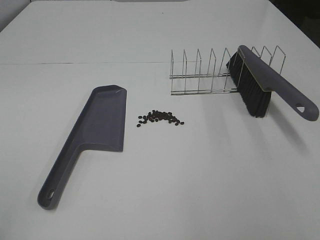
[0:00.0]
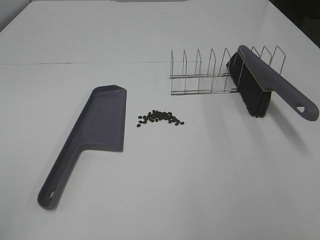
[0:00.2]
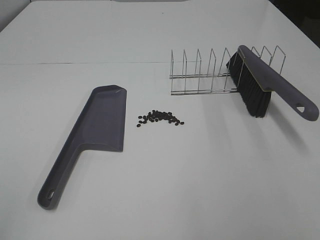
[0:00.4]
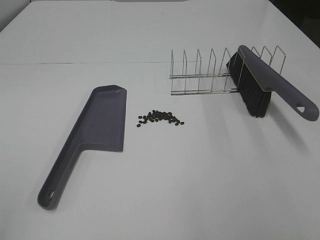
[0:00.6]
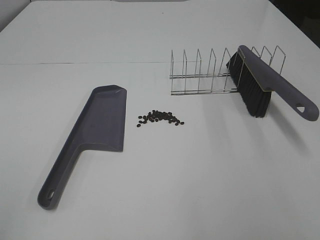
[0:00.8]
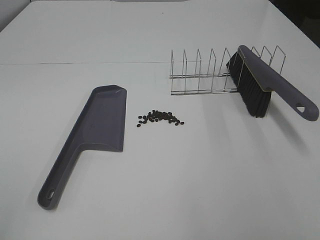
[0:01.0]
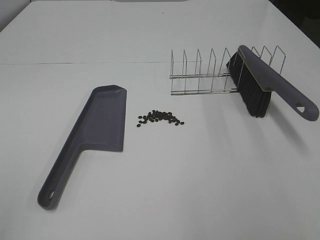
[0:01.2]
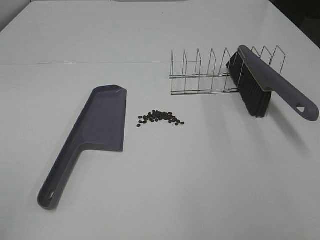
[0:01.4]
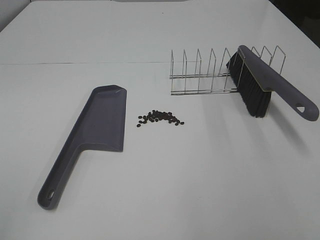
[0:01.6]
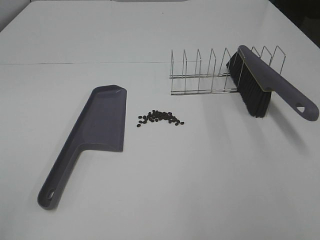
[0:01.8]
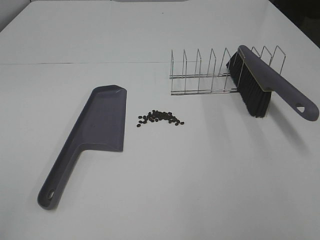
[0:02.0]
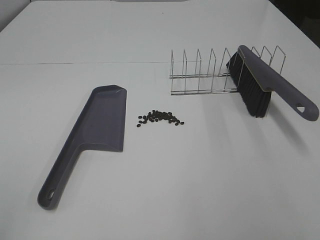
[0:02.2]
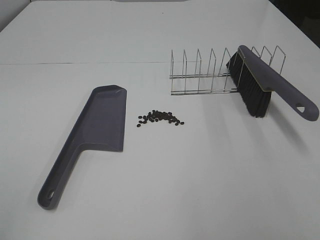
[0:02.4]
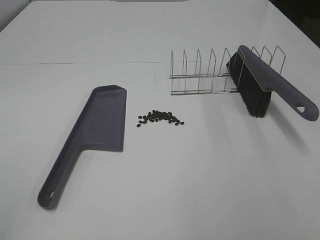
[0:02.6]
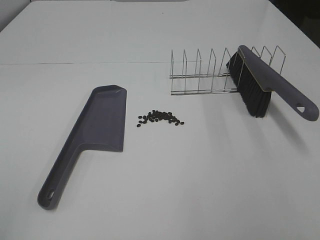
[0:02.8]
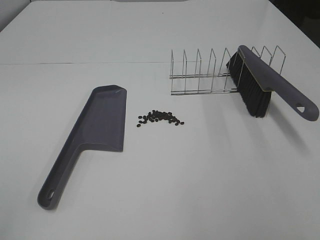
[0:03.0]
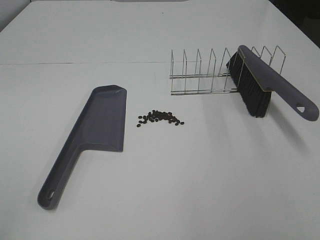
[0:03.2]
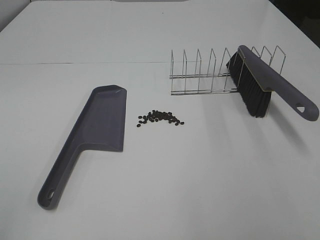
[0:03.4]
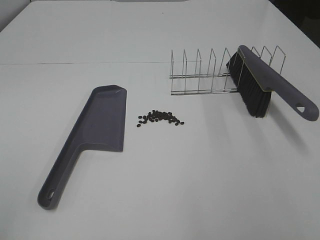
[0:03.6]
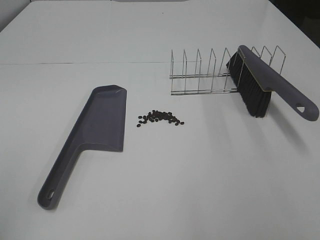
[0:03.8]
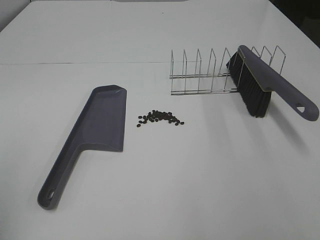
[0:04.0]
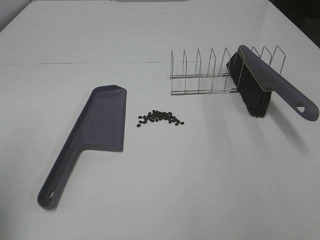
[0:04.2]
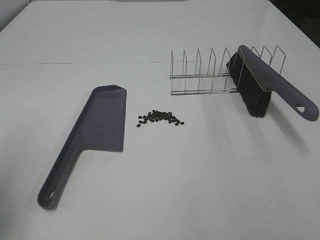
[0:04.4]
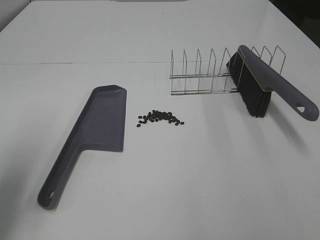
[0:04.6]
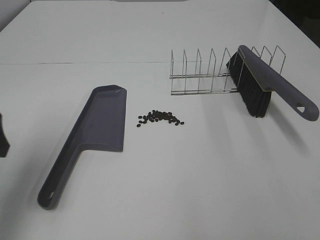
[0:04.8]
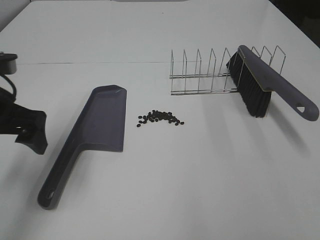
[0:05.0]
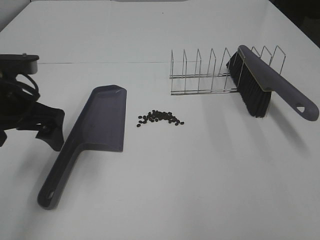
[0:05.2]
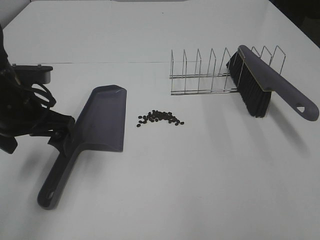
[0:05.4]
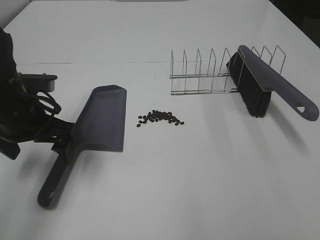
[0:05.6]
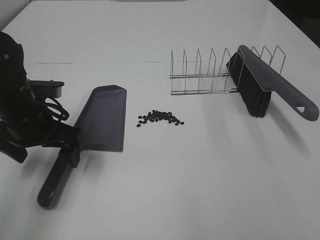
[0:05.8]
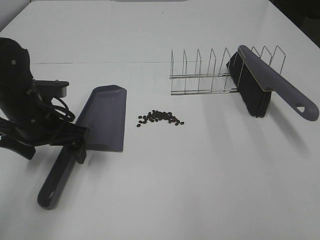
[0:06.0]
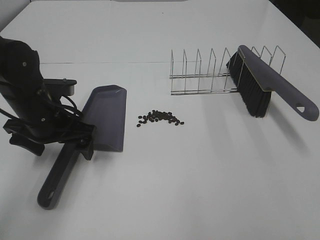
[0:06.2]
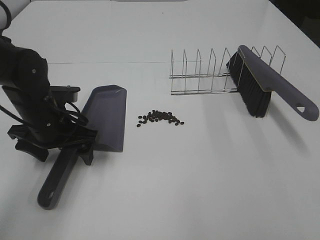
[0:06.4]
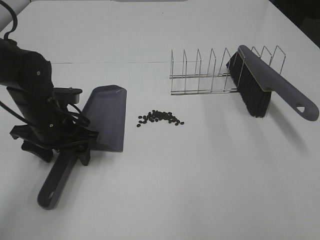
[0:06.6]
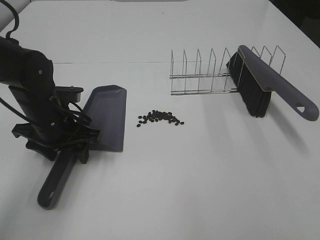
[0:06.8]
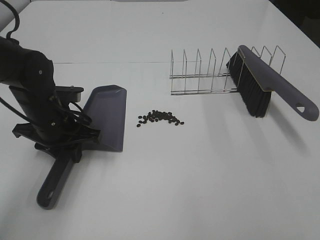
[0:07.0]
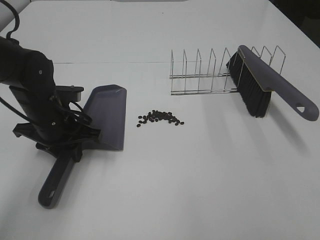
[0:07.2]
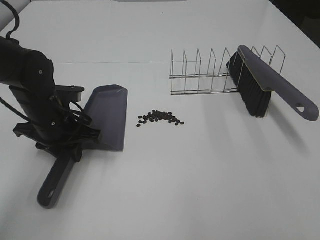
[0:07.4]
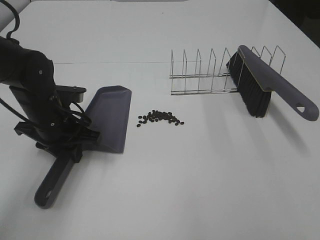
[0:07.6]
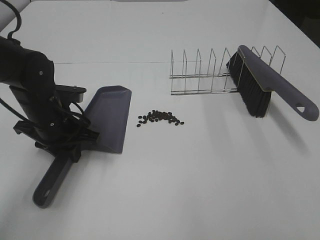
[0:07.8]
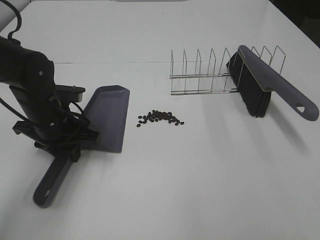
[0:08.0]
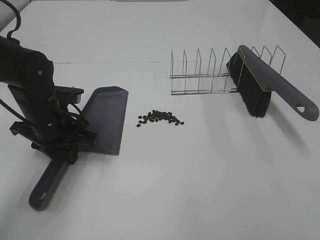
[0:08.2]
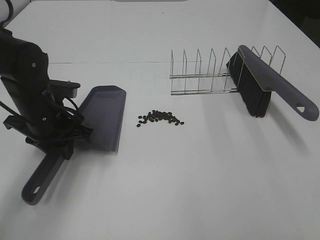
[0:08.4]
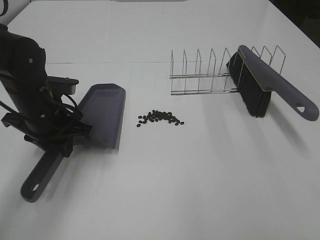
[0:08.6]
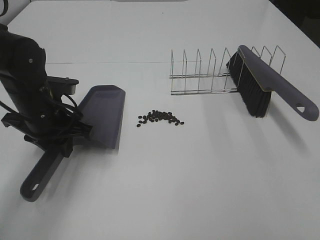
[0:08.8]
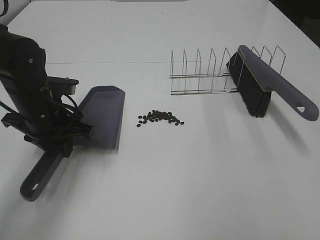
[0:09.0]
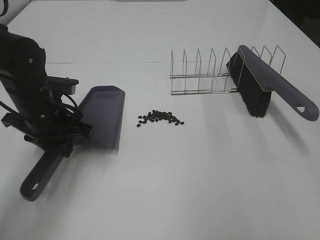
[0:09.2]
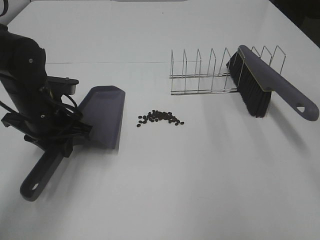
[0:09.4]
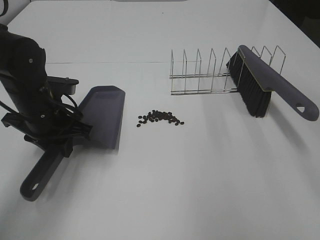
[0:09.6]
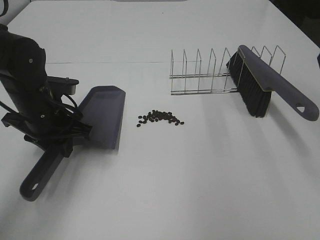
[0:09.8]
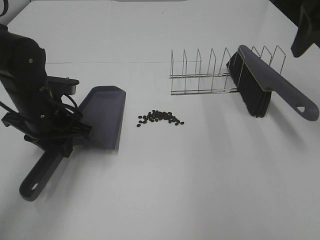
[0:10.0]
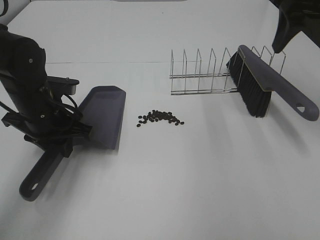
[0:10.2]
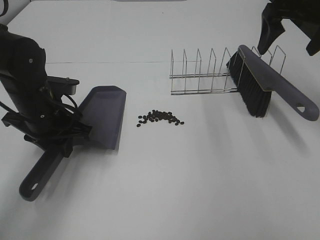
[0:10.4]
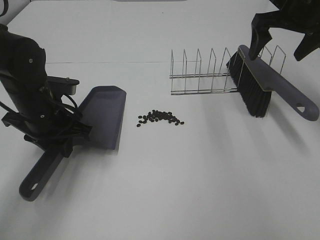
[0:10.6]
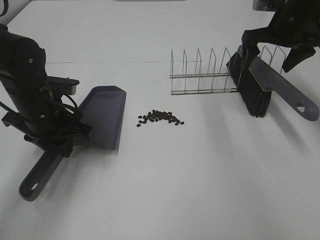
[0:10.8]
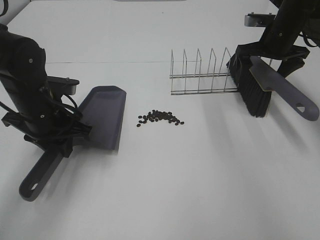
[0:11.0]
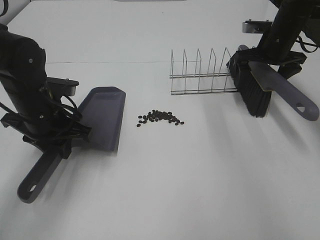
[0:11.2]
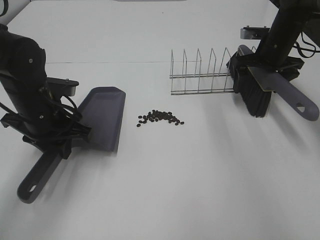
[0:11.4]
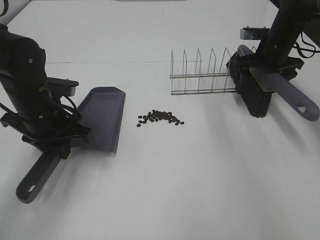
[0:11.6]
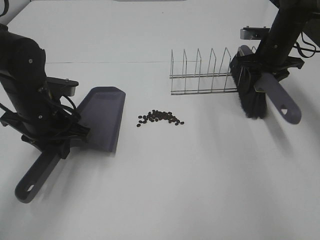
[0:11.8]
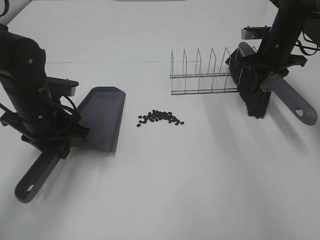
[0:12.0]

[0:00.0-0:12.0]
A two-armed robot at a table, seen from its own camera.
Task of the whole recording: Sweep Coffee Bean.
Step, 0:00.0 to 0:07.2: Left hand: grab the dustpan.
Step, 0:08.8 to 0:11.8: Right hand:grab the broom.
0:00.0 to 0:03.0: Both grippers stay put.
0:03.0 to 0:04.4: The left gripper shifts about 15 cm forward.
0:04.4 to 0:06.0: The left gripper heads forward, to the right and downward, covering some 25 cm.
0:06.0 to 0:07.6: The left gripper closes.
0:07.6 to 0:09.0: The right gripper shifts about 10 cm forward and upward.
0:09.0 to 0:10.4: The right gripper is displaced forward by about 30 cm, and opens.
0:10.4 to 0:12.0: The right gripper is displaced downward and forward by roughly 15 cm, and closes up.

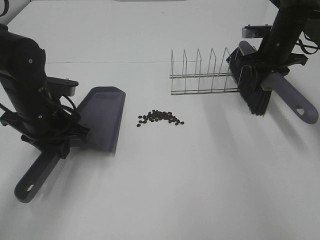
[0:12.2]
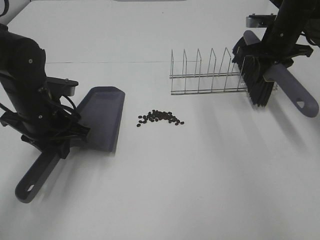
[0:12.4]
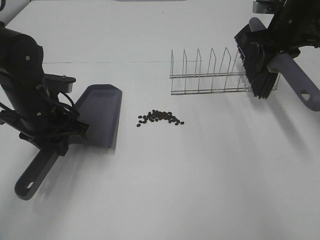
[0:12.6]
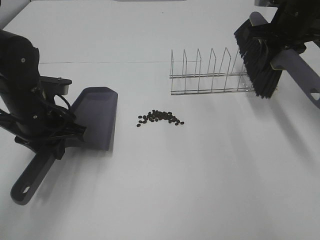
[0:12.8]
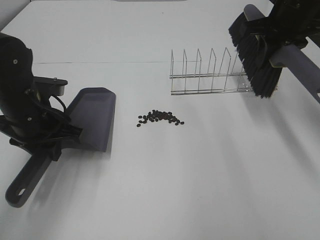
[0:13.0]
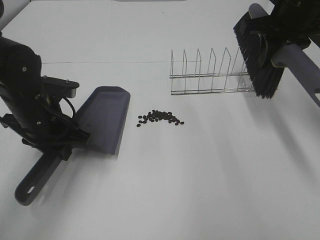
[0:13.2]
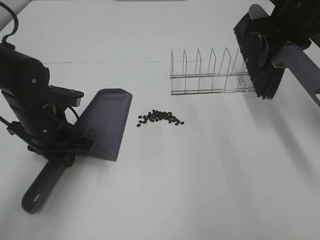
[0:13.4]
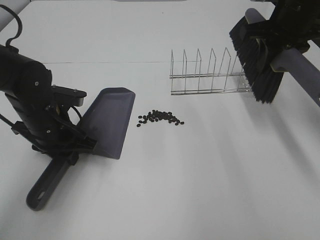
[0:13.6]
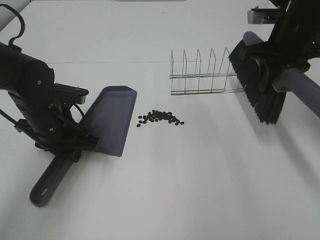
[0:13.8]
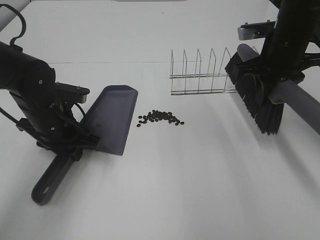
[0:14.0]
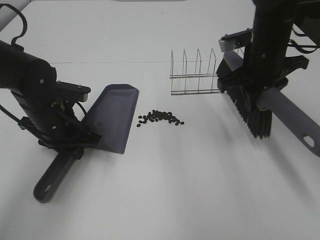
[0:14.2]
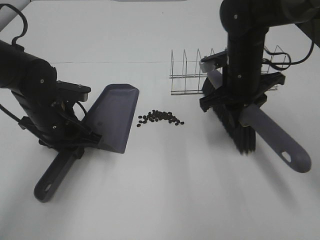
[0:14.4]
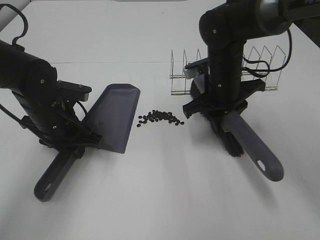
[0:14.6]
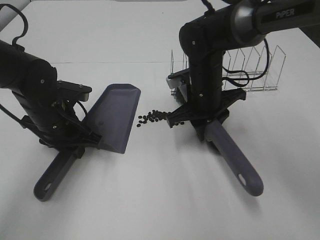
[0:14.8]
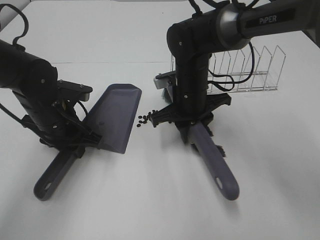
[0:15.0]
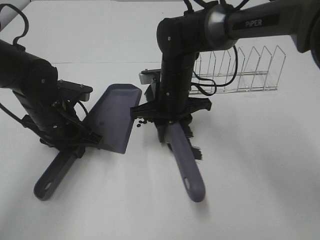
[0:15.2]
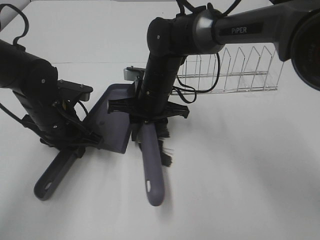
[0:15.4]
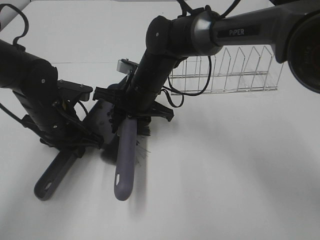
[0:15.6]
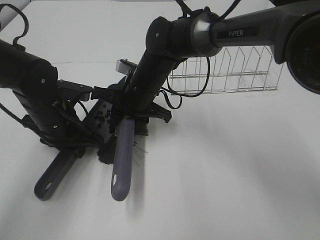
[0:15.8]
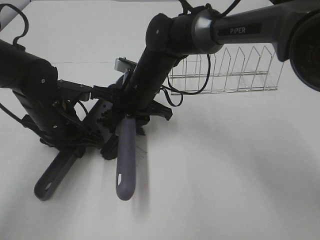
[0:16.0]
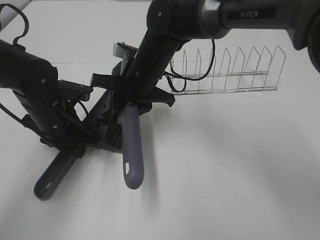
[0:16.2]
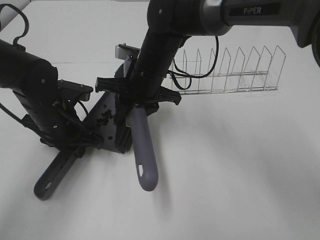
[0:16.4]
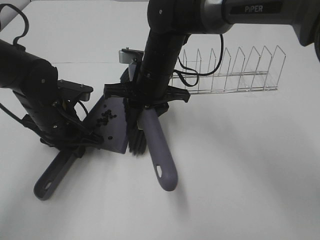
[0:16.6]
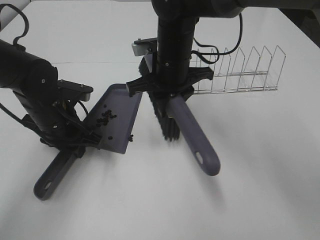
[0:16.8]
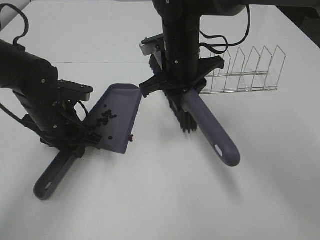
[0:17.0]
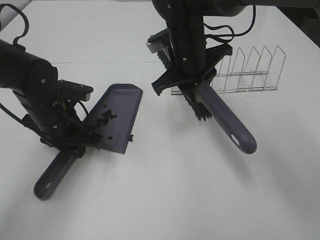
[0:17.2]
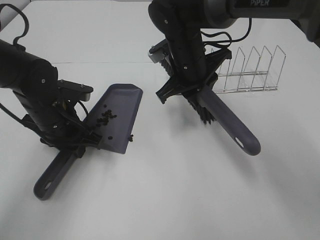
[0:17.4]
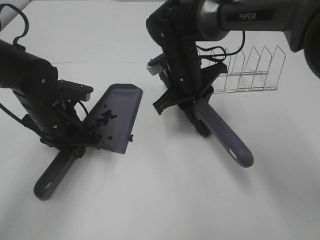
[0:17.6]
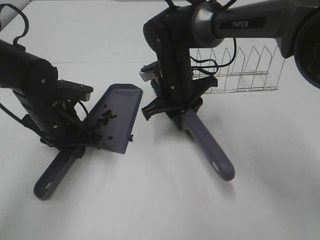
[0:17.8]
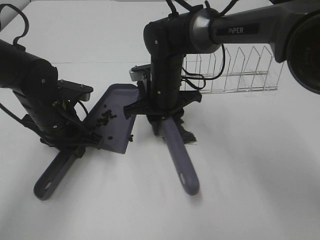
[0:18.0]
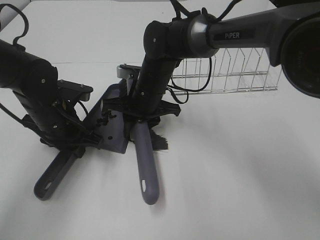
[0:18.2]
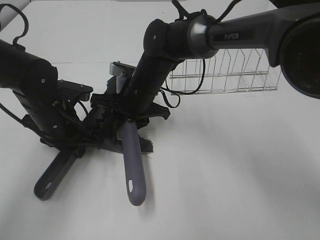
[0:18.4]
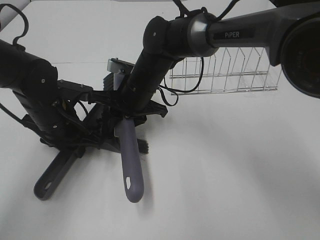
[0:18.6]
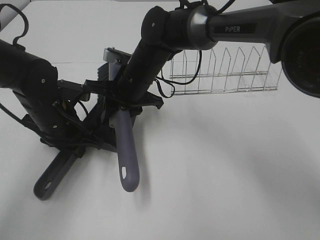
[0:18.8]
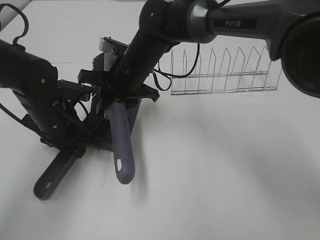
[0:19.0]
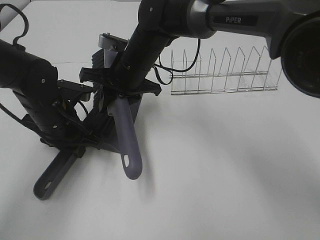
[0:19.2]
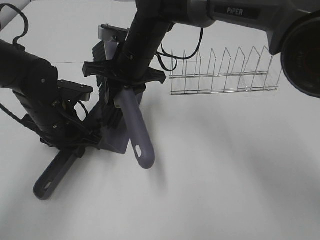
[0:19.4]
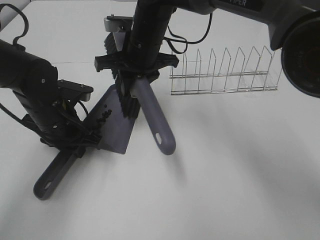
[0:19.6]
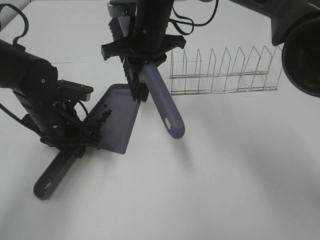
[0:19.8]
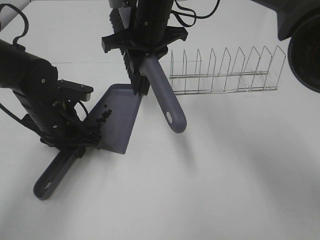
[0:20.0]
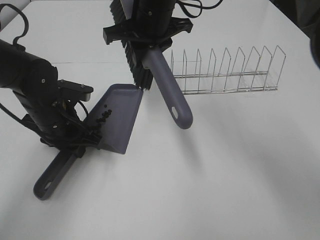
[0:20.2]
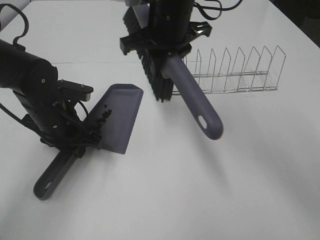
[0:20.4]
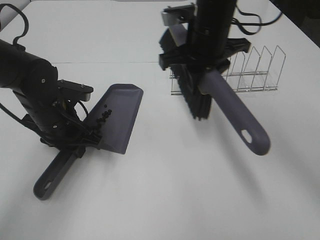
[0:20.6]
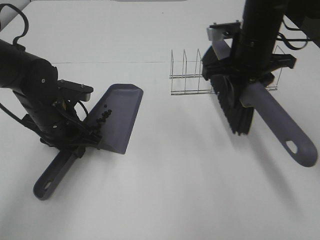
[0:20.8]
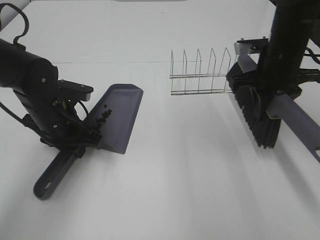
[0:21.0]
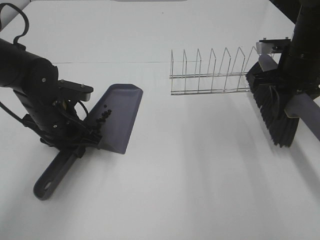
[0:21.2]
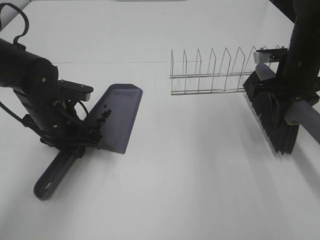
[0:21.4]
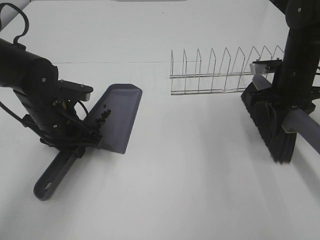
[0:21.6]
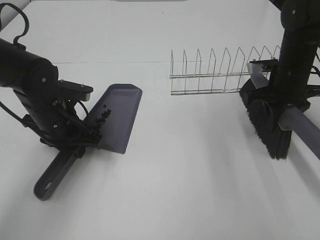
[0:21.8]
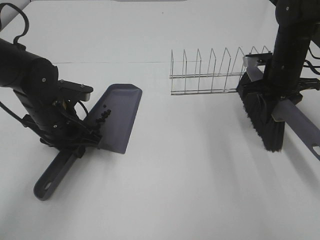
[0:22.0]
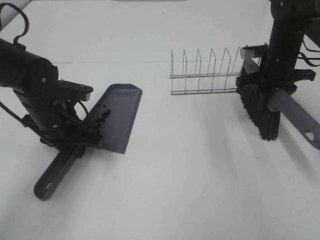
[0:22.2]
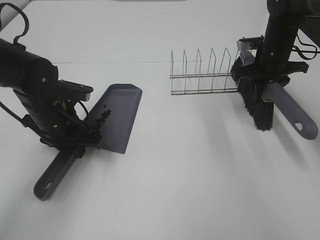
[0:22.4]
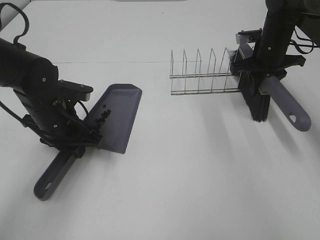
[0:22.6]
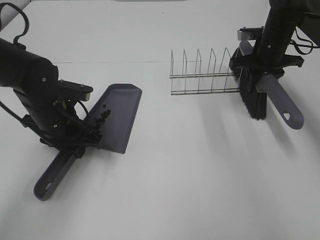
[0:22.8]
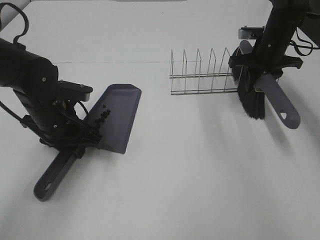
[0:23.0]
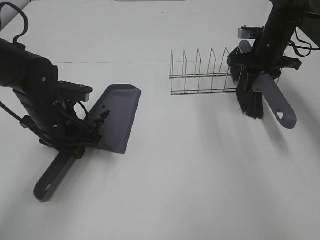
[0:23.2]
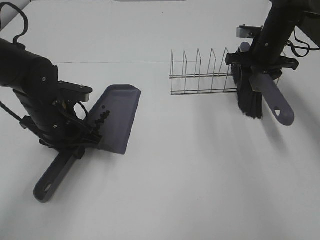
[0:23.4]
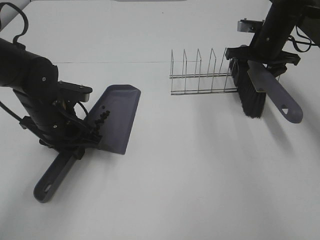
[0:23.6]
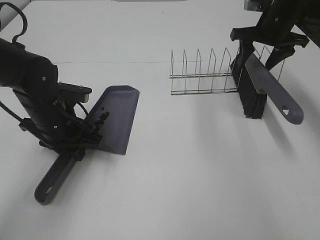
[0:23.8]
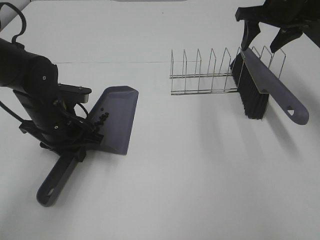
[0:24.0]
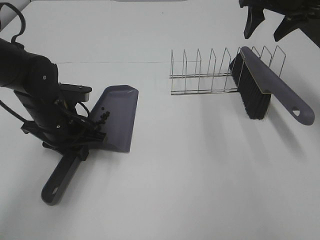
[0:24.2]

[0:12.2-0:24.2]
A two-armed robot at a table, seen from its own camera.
Task of the whole recording: Sweep Coffee Bean.
Step, 0:12.2 to 0:14.2: Left hand: move the dustpan to the left side of the coffee beans.
Step, 0:12.2 to 0:19.4: Right hand:sweep the coffee beans into the dustpan.
Step, 0:19.6 to 0:23.6: Right hand:place the broom on the rack.
0:12.2 to 0:13.8: The right gripper travels backward and upward by about 10 cm.
0:13.8 to 0:15.2: The right gripper is displaced to the left and downward by approximately 25 cm.
0:15.2 to 0:16.6: The right gripper shifts by about 5 cm.
0:16.6 to 0:18.2: The right gripper changes place by approximately 5 cm.
0:18.2 to 0:19.8: The right gripper moves upward, about 10 cm.
0:19.8 to 0:21.2: The right gripper is displaced to the right by approximately 25 cm.
0:21.2 to 0:22.6: The right gripper moves forward, some 10 cm.
0:22.6 to 0:24.2: The right gripper goes roughly 15 cm upward, and opens up.
